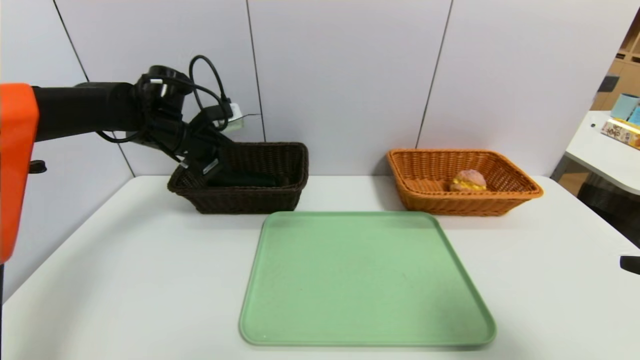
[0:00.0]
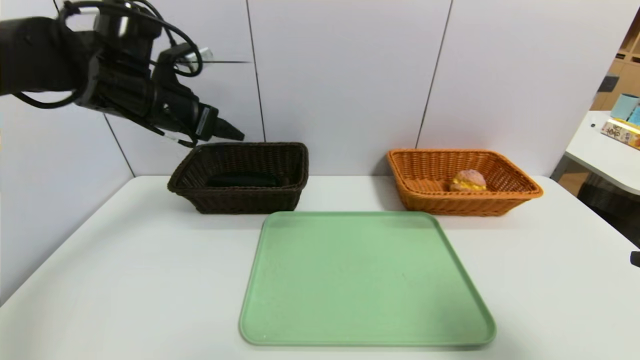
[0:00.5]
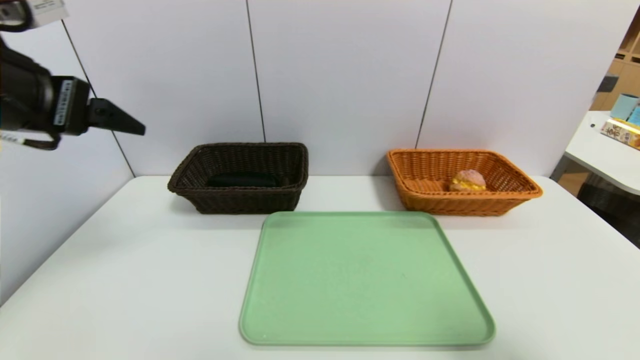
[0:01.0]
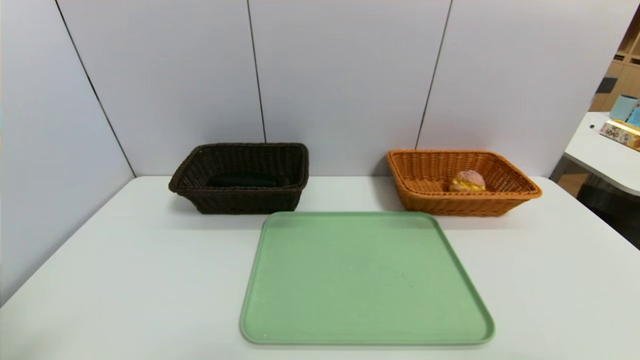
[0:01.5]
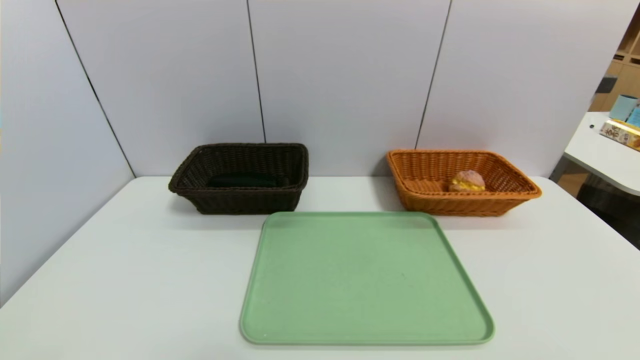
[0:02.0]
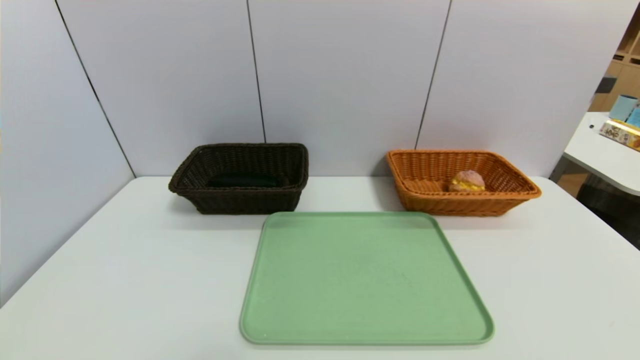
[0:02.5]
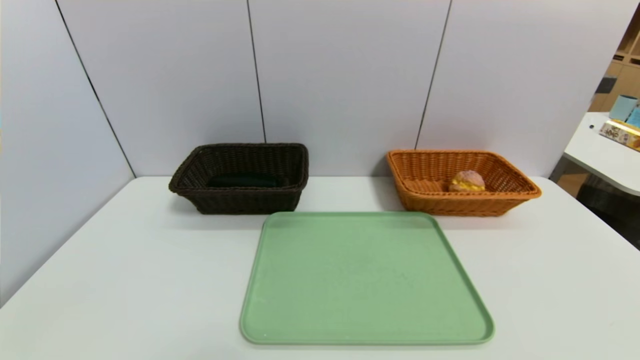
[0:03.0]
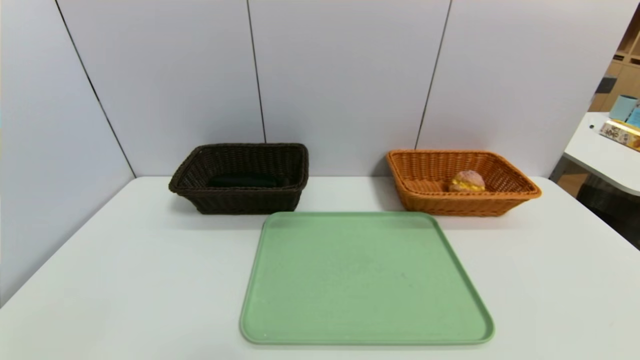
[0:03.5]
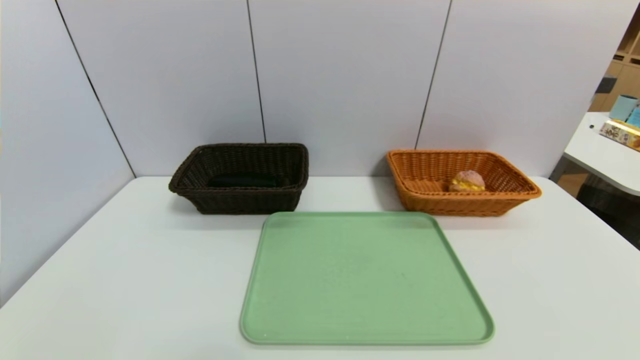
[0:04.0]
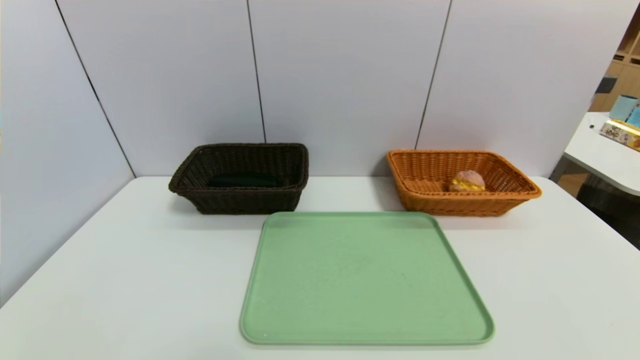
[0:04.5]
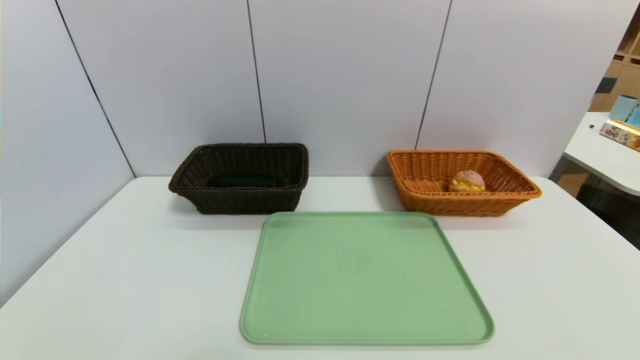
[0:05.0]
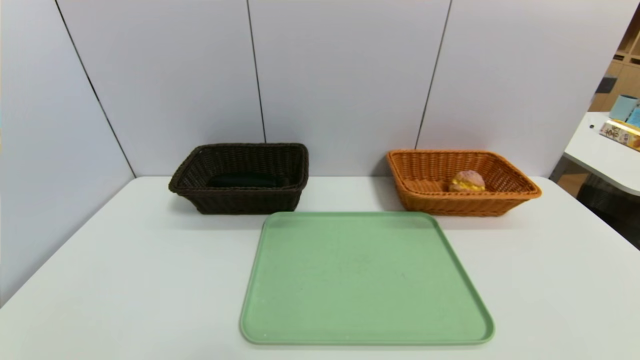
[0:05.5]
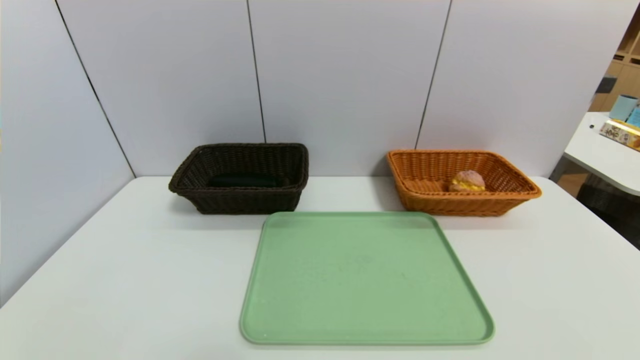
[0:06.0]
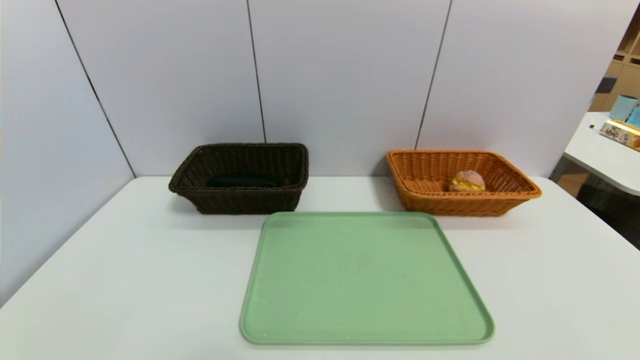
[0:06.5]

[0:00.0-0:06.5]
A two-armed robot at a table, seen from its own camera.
Task of the whole recording: place the food in the right basket with the right gripper, and place the non food items in the left basket with the left gripper.
0:00.0 to 0:02.0: The right gripper is displaced backward by some 10 cm. The left gripper travels backward by about 40 cm.
